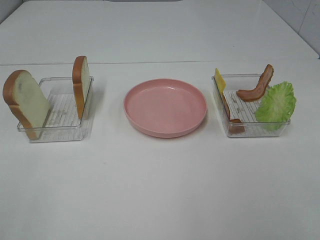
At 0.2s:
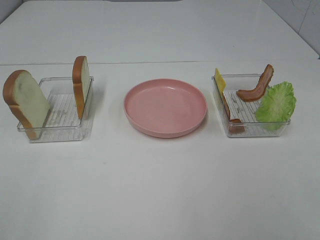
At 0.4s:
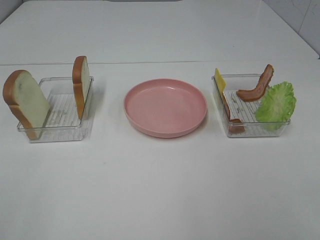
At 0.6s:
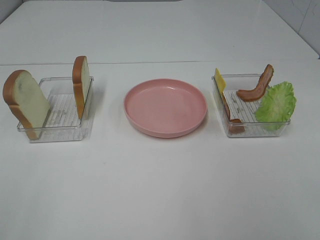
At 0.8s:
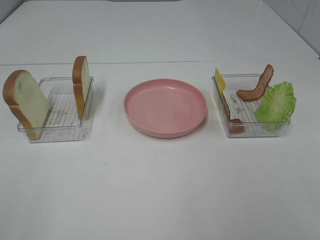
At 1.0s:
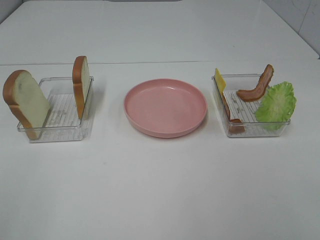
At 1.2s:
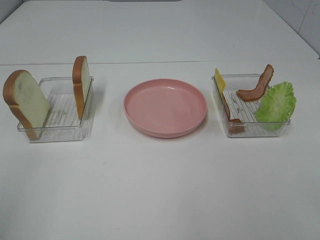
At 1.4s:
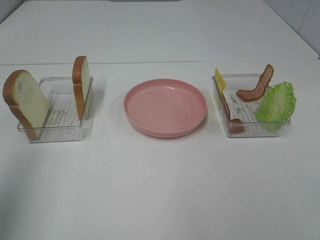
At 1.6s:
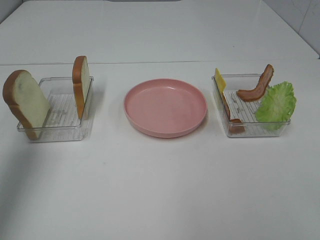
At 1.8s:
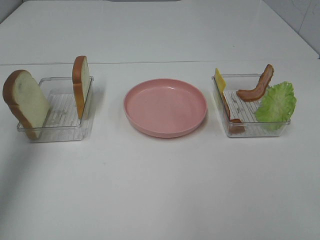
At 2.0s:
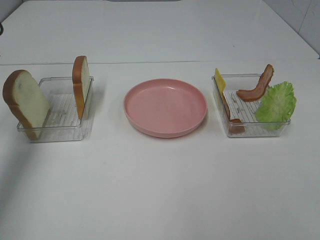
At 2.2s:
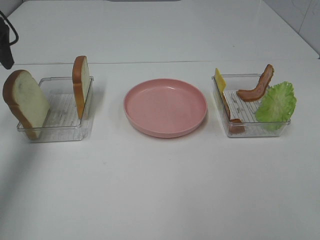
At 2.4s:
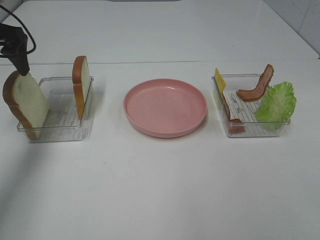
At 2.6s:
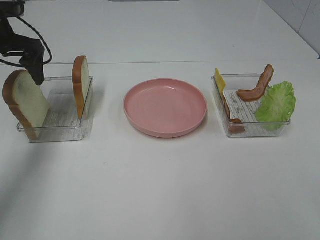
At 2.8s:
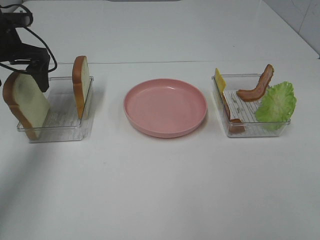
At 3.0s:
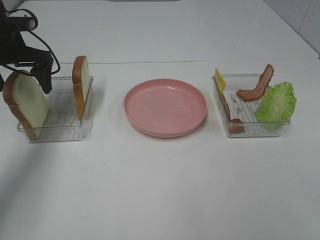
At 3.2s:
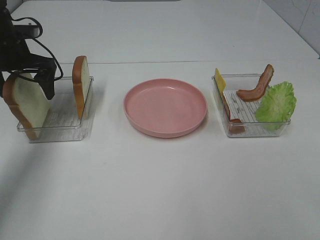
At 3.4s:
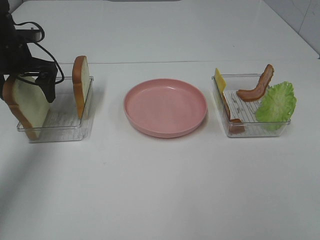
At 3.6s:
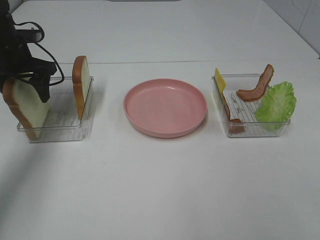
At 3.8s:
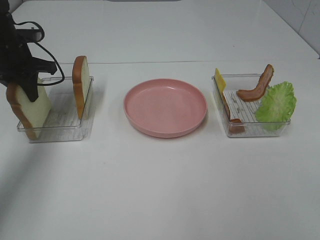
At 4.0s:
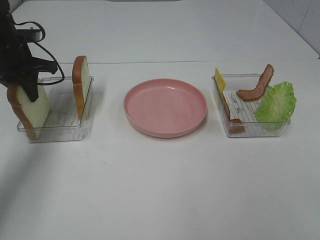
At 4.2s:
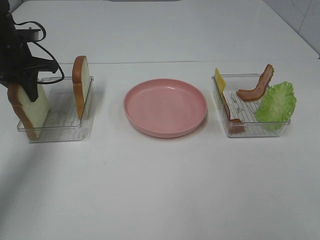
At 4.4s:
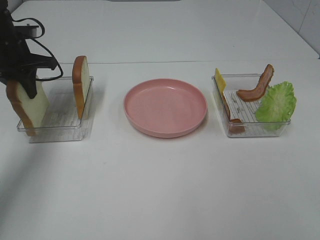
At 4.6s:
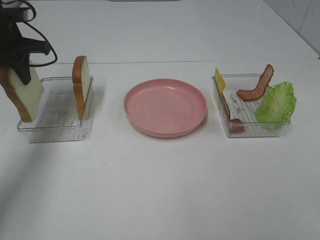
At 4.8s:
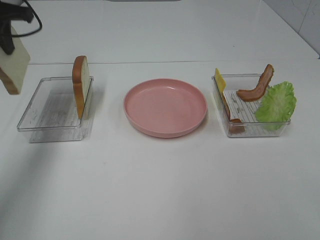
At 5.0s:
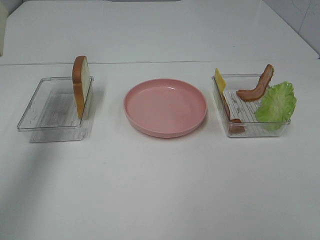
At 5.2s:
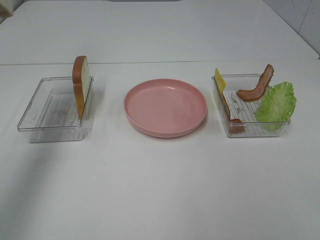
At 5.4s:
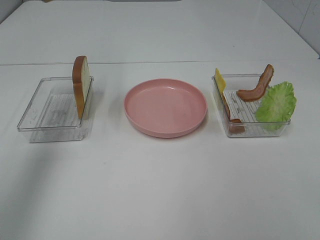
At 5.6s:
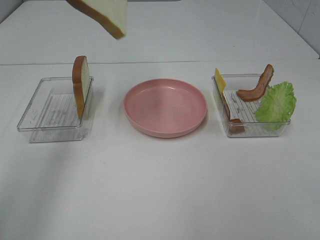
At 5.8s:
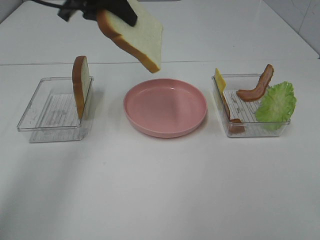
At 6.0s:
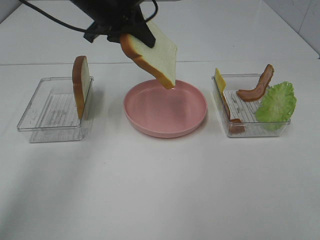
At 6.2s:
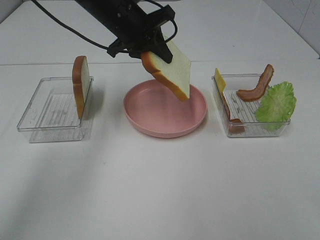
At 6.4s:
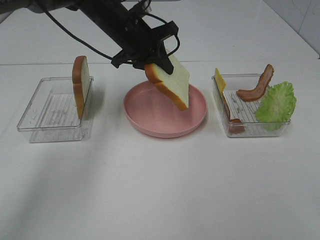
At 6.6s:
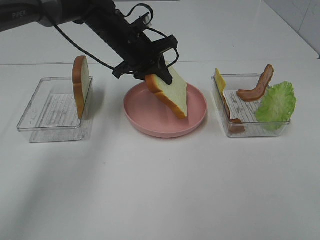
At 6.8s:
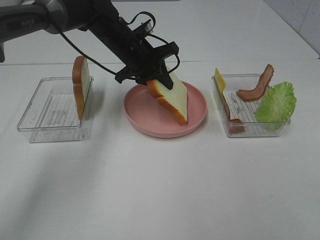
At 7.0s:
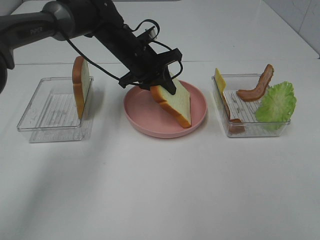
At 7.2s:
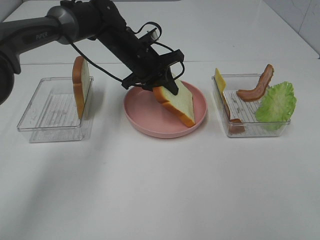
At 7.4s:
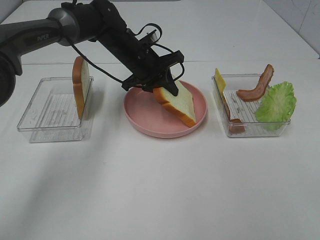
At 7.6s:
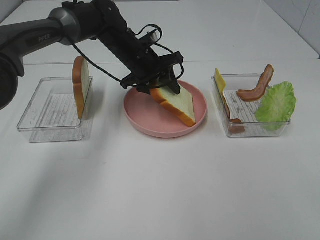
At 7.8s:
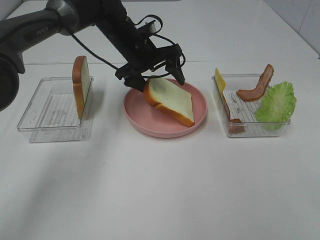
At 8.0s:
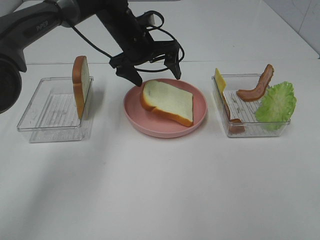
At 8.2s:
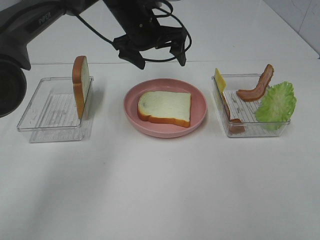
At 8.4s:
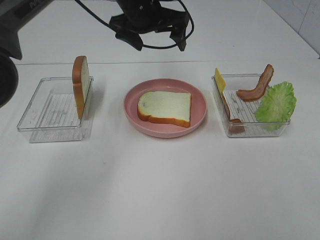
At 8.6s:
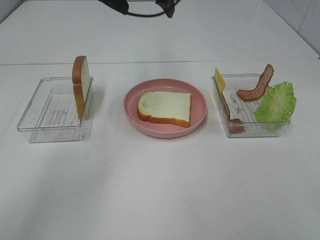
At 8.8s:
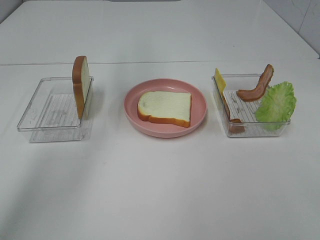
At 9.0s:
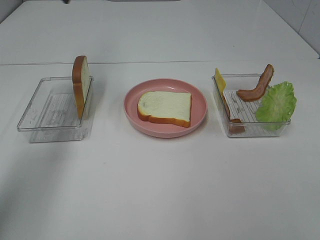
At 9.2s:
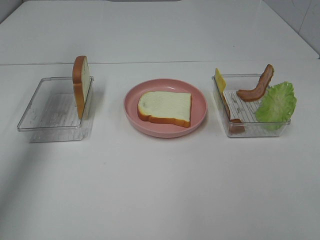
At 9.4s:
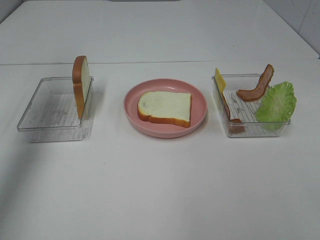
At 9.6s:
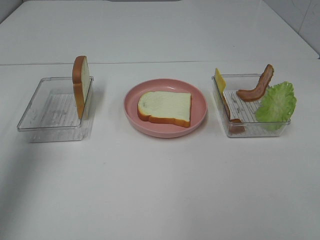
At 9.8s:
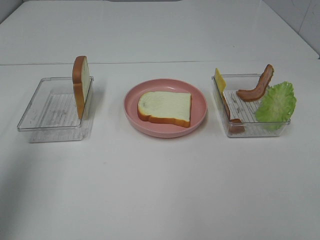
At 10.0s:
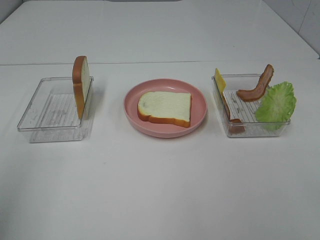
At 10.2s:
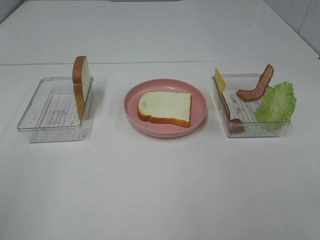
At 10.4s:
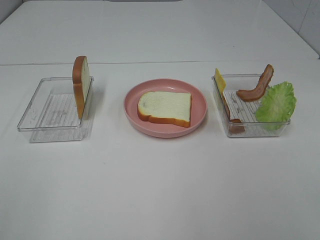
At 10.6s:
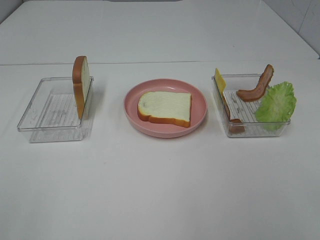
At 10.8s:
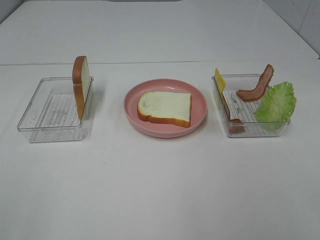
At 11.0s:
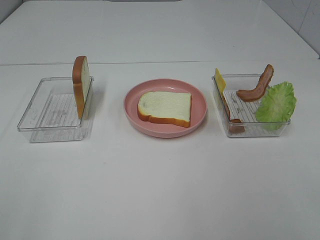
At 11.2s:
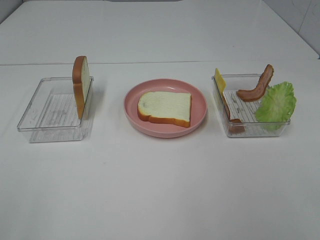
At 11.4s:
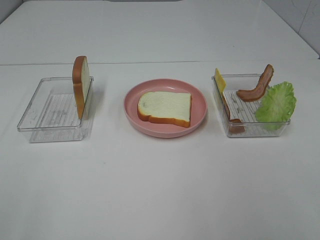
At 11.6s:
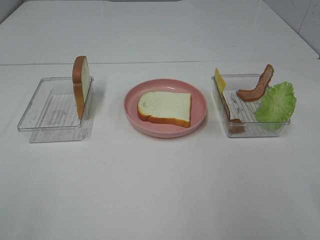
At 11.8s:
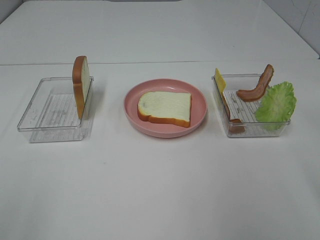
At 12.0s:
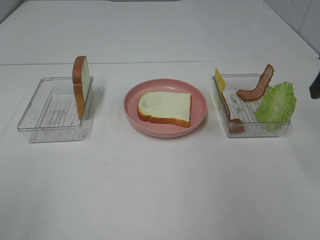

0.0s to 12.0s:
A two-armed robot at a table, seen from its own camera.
Task of the whole recording: Make sandwiches.
Step, 0.0s to 3.6s: Left hand:grab the bread slice.
Step, 3.8s to 8.0s: Left hand:place the bread slice on the plate.
0.0s to 1.6s: The left gripper moves forward, about 25 cm.
1.6s to 3.0s: The left gripper moves forward and downward, roughly 25 cm.
3.0s to 4.4s: The left gripper closes up.
4.4s to 6.0s: The left gripper shifts approximately 20 cm to the right, and travels upward and back again, roughly 25 cm each way.
6.0s to 7.6s: The left gripper shifts roughly 10 cm downward, and opens its fingers.
7.6s to 9.0s: The left gripper goes about 30 cm upward and to the left, and opens.
9.0s to 10.4s: The left gripper goes roughly 50 cm backward.

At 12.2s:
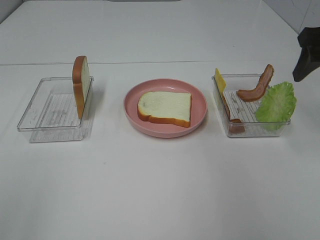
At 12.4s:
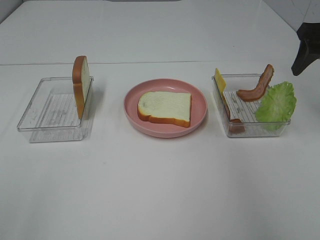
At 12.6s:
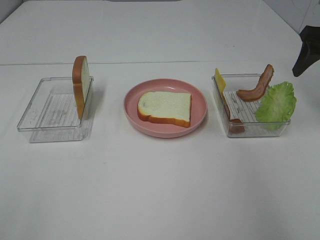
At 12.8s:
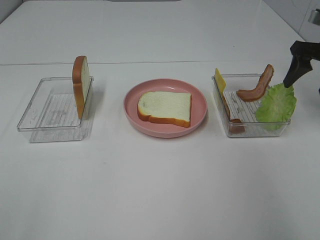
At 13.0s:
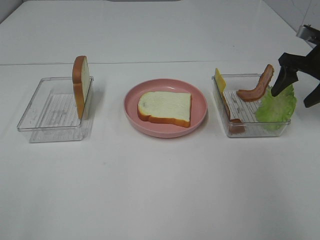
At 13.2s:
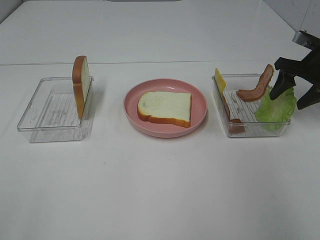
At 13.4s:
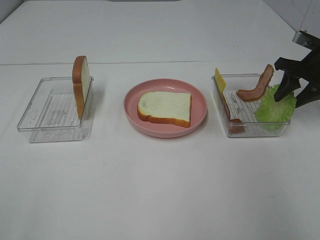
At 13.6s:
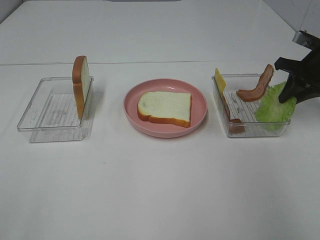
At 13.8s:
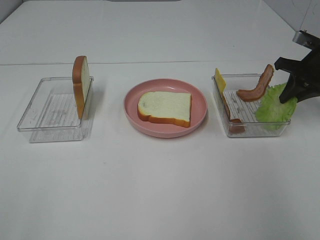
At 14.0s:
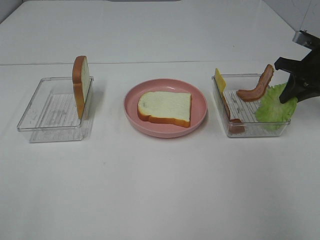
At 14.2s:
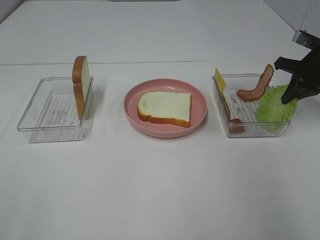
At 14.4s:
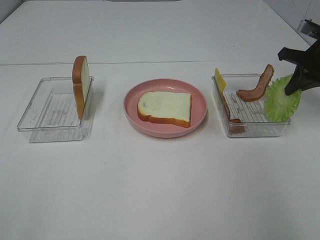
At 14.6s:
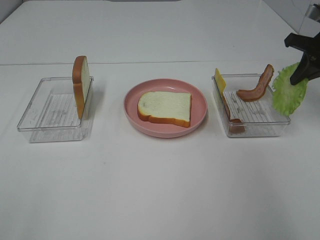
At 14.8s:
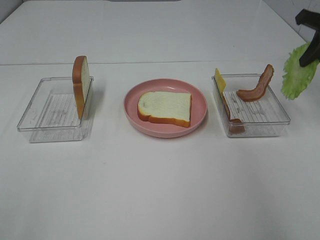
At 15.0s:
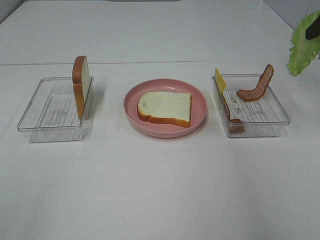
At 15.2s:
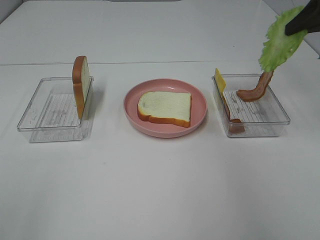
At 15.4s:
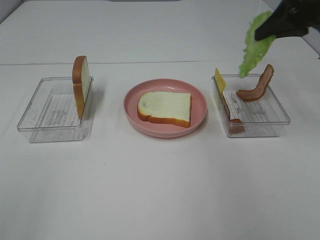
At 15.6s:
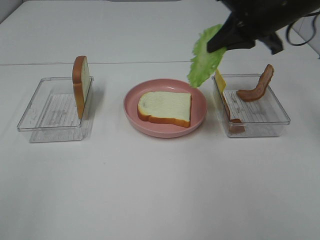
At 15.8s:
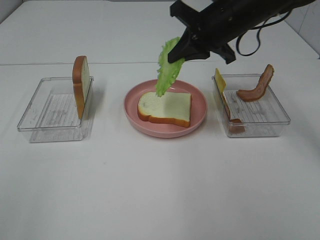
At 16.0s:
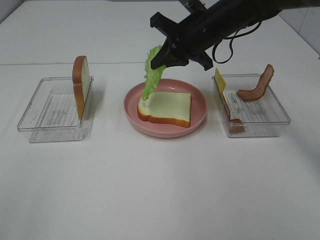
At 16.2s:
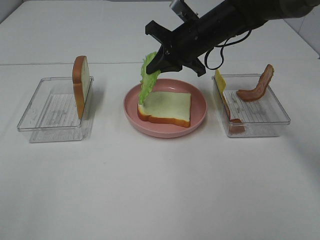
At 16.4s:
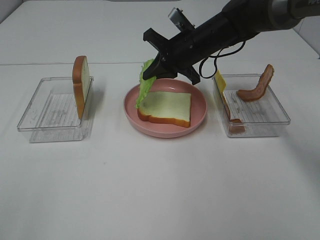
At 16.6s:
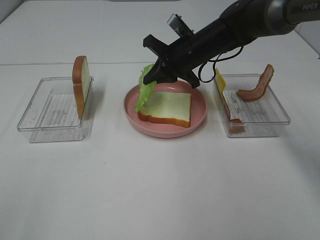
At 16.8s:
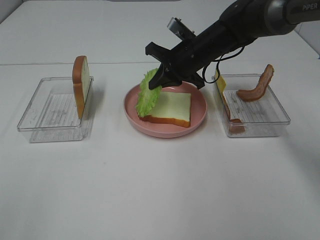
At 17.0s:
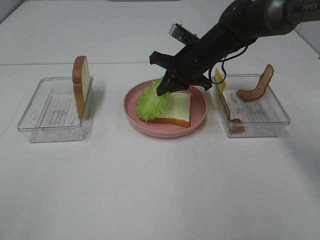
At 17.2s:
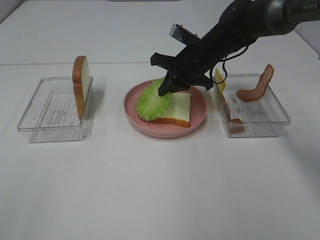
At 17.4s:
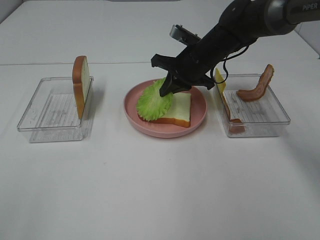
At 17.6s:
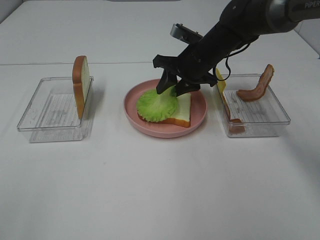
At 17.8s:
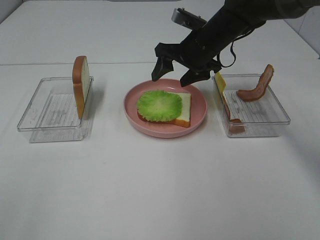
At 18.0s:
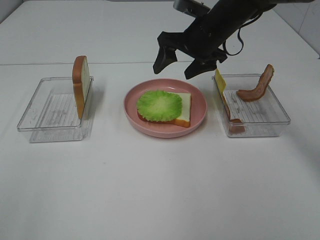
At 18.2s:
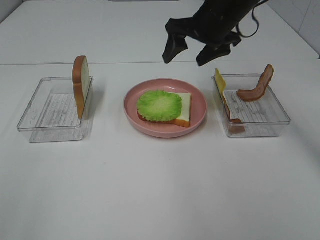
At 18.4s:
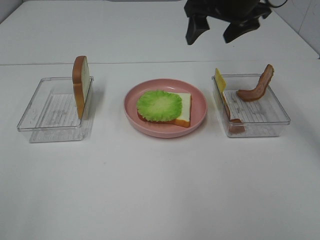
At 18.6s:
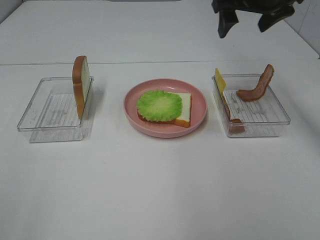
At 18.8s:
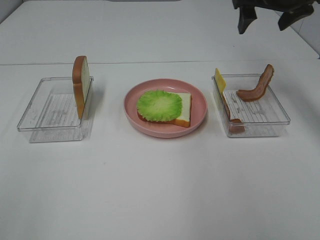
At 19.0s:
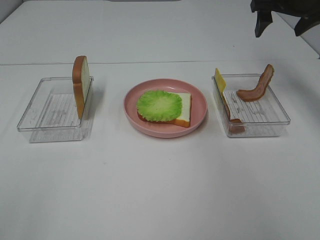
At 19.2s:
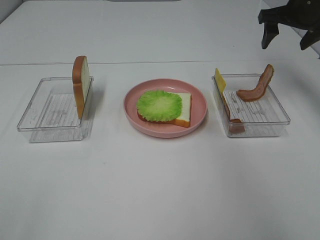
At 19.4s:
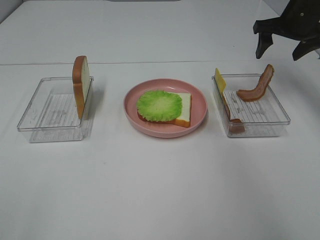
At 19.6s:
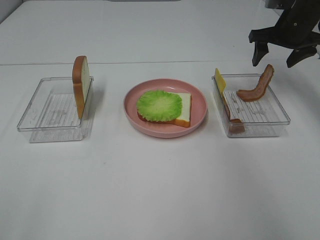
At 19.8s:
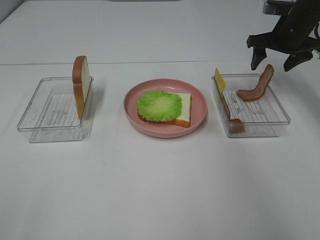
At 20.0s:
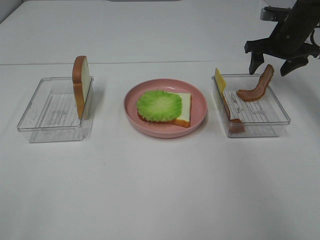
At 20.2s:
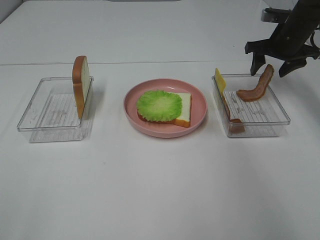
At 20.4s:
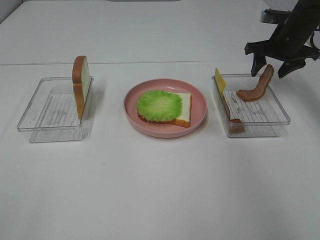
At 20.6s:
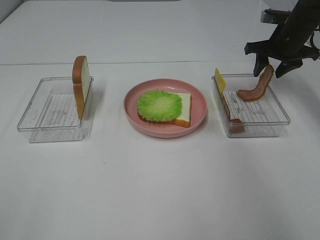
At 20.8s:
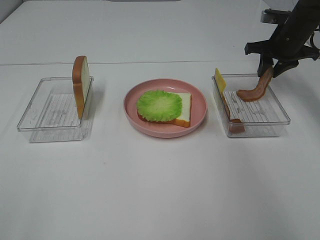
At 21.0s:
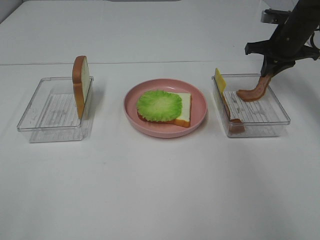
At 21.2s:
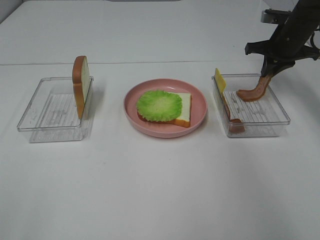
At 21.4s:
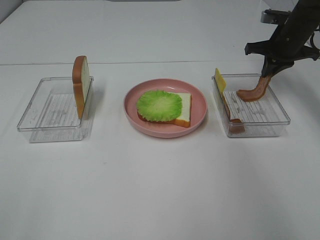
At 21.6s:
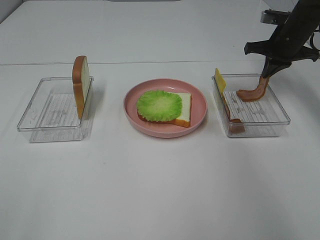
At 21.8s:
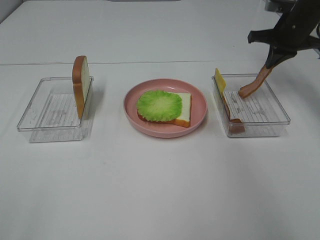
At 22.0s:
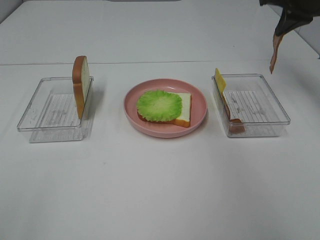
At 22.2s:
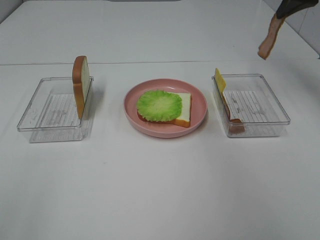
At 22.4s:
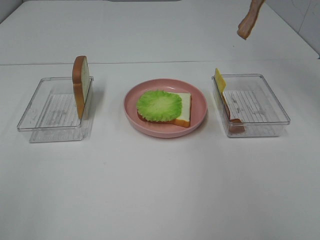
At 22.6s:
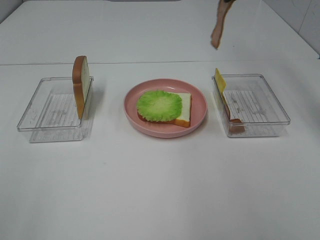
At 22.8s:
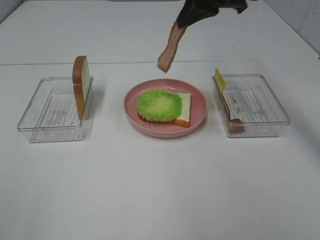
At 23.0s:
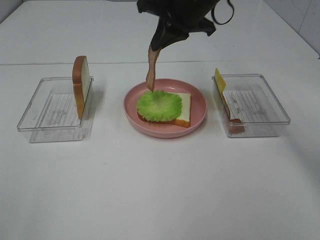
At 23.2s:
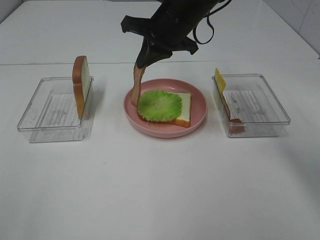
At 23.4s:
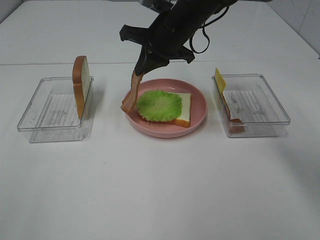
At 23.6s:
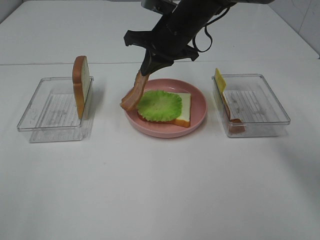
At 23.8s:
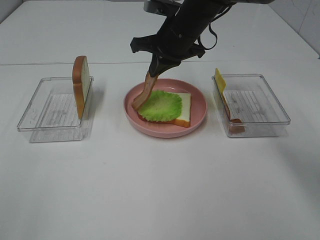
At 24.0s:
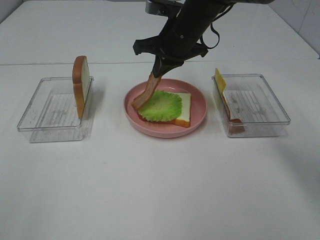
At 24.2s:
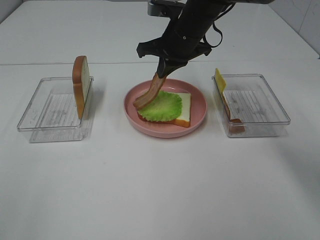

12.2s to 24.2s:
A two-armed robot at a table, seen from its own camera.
Task of the whole recording: Make sandwiches.
Step, 14.0s to 18.0s: Right hand:place the lettuce slice on the bread slice.
Step, 18.2s to 21.6s: Right hand:grab the bacon.
12.2s to 13.8s: The right gripper shifts about 15 cm downward and forward, and closes.
13.8s to 15.2s: The right gripper travels upward and backward by some 15 cm.
15.2s to 16.6s: The right gripper travels to the left, downward and forward by roughly 30 cm.
16.6s to 18.2s: The right gripper shifts some 10 cm upward, and opens.
18.2s to 19.8s: The right gripper is displaced to the right and forward by about 20 cm.
19.8s to 21.2s: The right gripper closes up.
21.2s to 22.6s: The right gripper goes some 20 cm upward, to the left and backward.
22.6s to 24.2s: The right gripper travels downward and to the left by approximately 20 cm.
